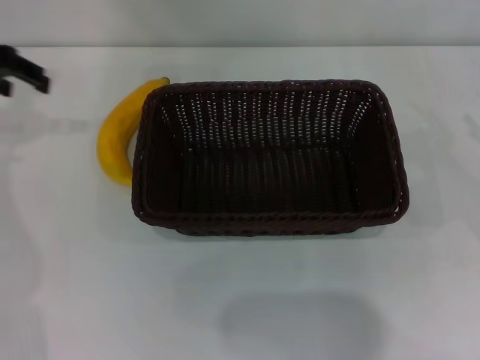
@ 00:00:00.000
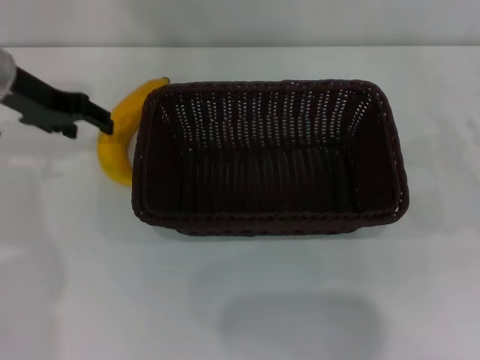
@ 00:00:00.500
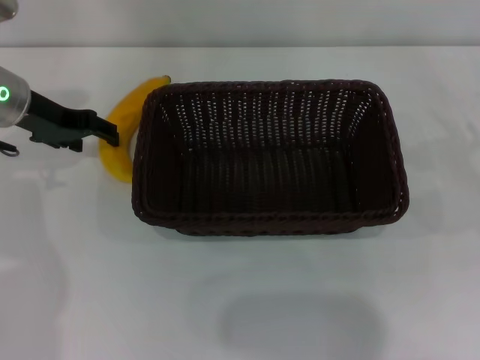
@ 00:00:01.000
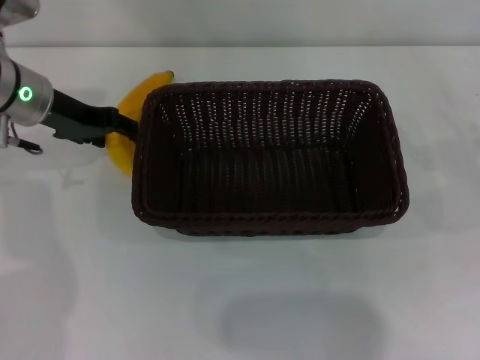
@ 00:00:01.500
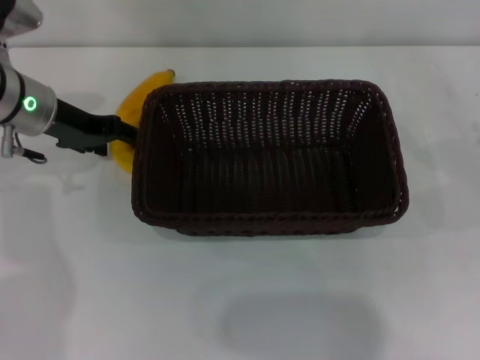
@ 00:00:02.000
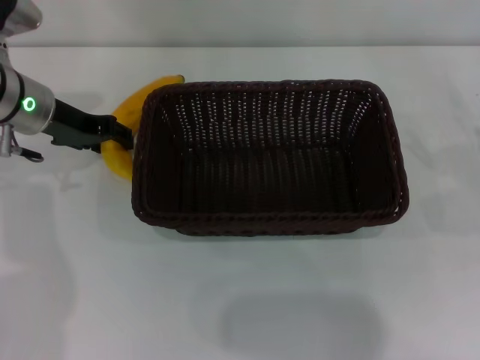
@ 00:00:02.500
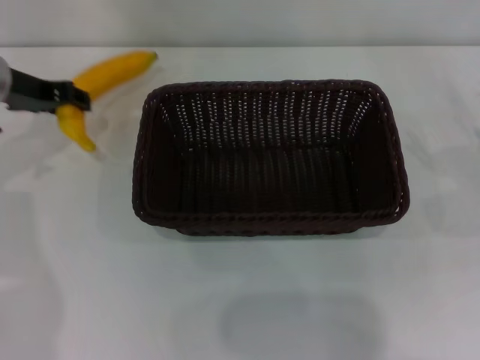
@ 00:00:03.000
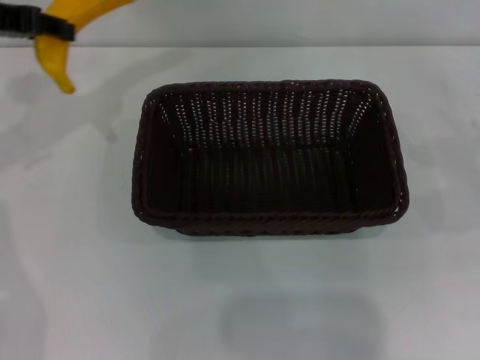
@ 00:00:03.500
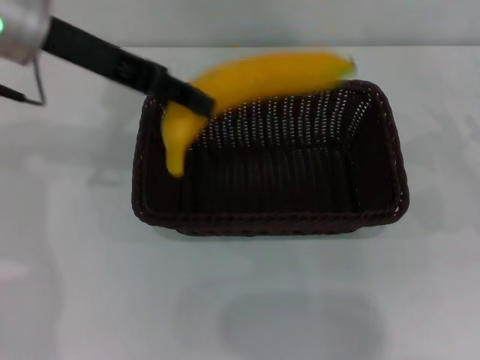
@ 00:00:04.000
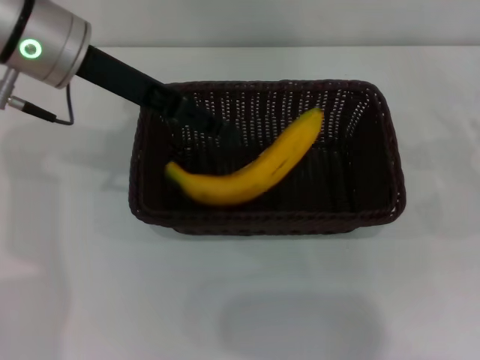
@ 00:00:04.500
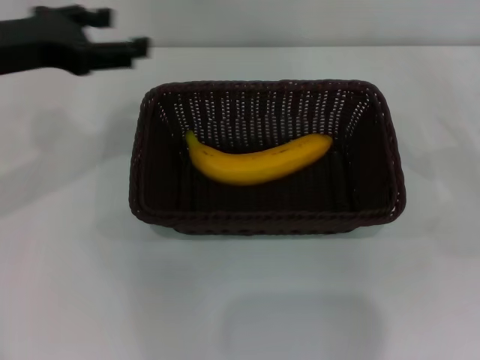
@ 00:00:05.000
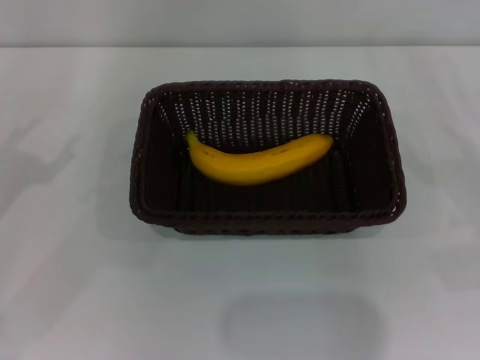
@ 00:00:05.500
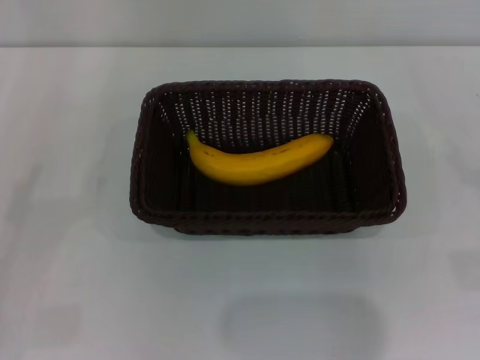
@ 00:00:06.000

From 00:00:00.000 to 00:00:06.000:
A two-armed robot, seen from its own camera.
Step, from 00:00:00.000 to 00:00:03.000: Pick up the banana with the left gripper.
Step, from 00:00:03.500 to 00:00:04.500: Place the banana into the dark basket with the left gripper.
From 00:00:00.000 to 00:00:02.000: The left gripper is displaced downward and to the right by about 15 cm.
From 00:00:02.000 to 00:00:04.000: The left gripper travels upward by approximately 15 cm.
From 00:00:04.000 to 00:00:06.000: The right gripper shifts some 5 cm backward. Meanwhile the left gripper moves downward, backward and to the left, about 30 cm, and opens its fingers.
